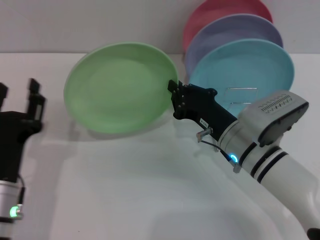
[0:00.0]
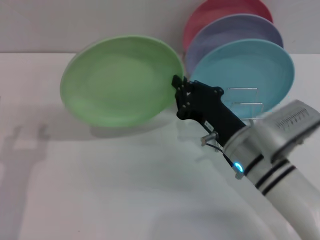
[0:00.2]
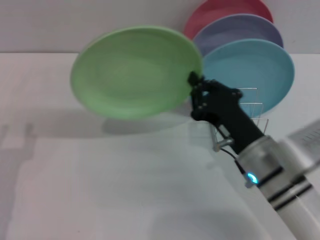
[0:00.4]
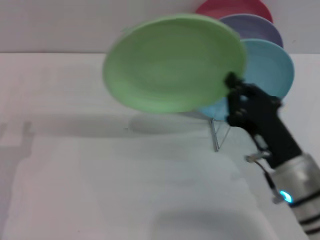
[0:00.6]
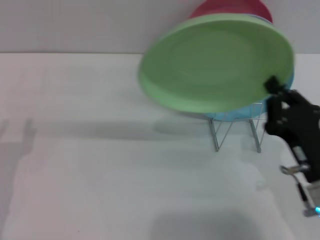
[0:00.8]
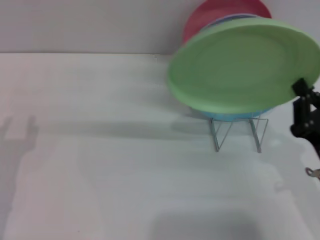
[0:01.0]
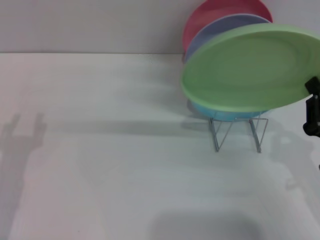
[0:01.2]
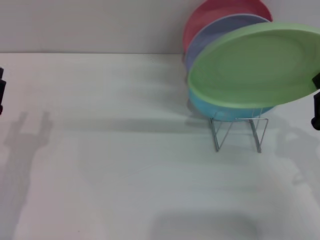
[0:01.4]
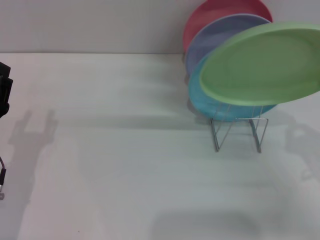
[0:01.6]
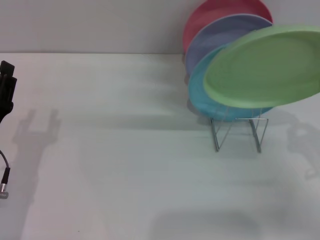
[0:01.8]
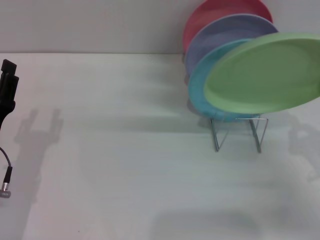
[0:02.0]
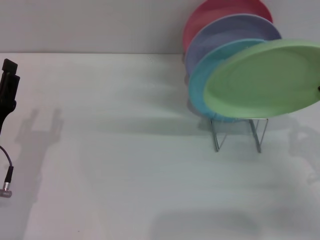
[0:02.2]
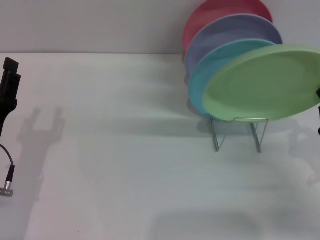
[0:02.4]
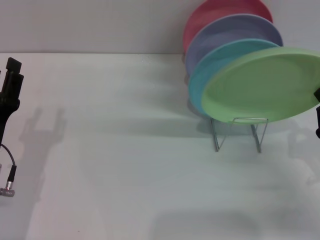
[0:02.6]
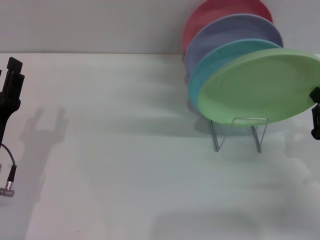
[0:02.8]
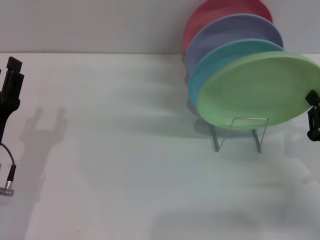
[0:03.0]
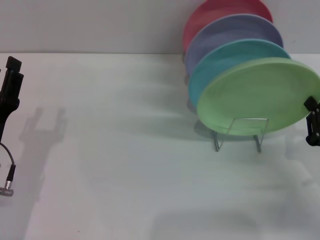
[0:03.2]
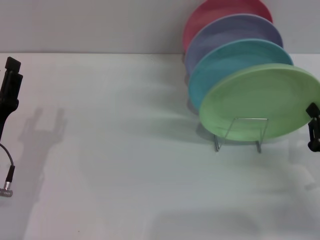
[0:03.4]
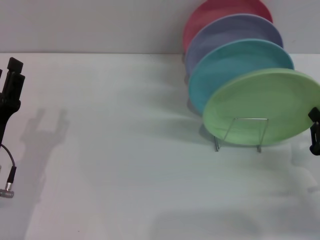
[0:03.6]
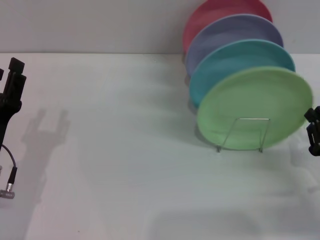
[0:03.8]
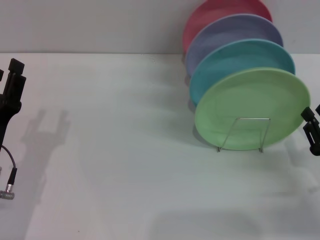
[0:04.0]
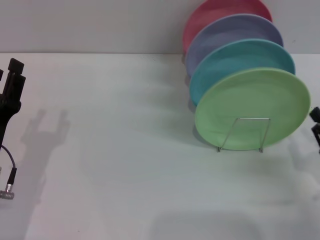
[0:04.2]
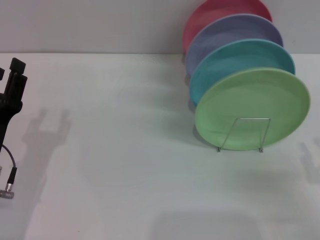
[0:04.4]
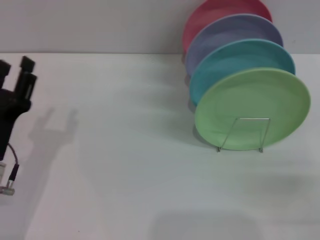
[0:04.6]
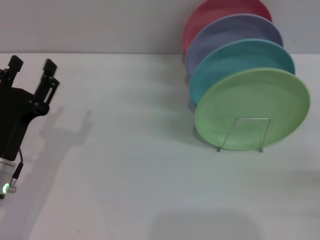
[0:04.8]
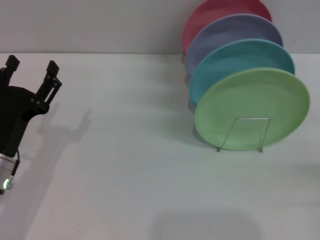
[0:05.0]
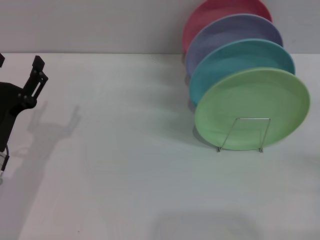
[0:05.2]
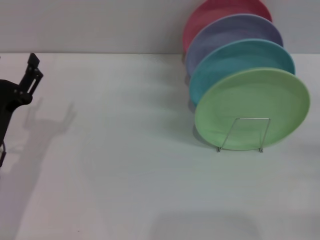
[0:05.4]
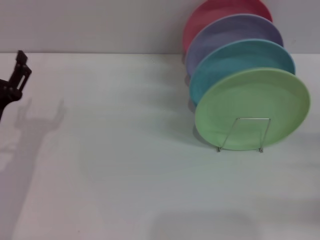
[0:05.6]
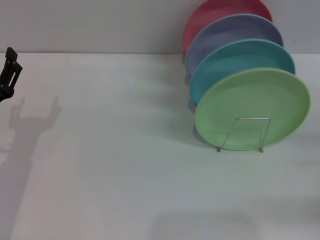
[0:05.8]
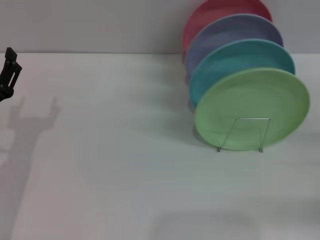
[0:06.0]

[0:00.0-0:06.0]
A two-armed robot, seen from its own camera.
Task of the whole recording: Grip the plate with one hand, pass it to the other, then set it on the shelf.
Step, 0:00.0 to 0:04.0: Place the plate on the shelf with the right gripper.
0:00.0 to 0:01.6: The right gripper travels to the right and backward by about 20 cm. Meanwhile the left gripper moves approximately 5 cm.
0:01.6 to 0:03.0: The grippers stay close to where they were, moving slightly.
0:03.0 to 0:04.4: The right gripper heads backward, covering approximately 5 cm, and opens up.
0:04.4 to 0:06.0: The right gripper goes roughly 10 cm to the right and forward, and opens.
